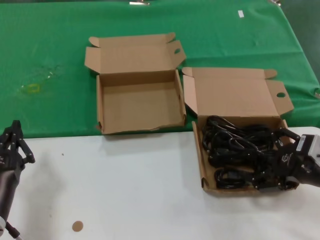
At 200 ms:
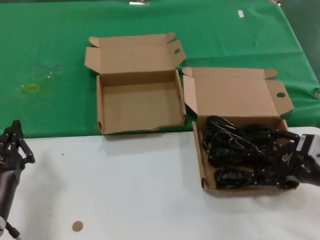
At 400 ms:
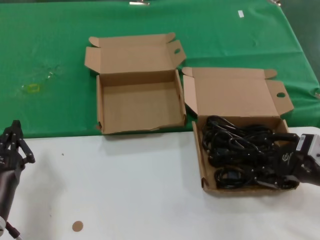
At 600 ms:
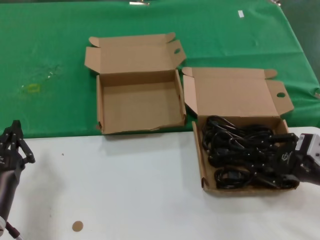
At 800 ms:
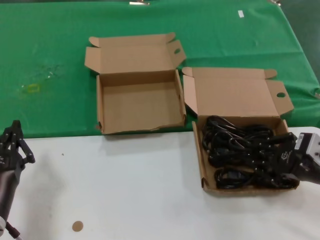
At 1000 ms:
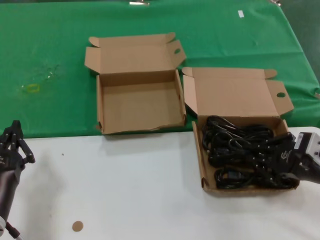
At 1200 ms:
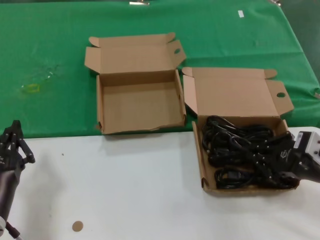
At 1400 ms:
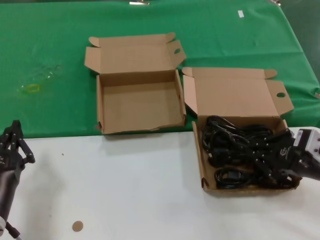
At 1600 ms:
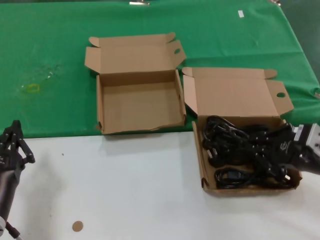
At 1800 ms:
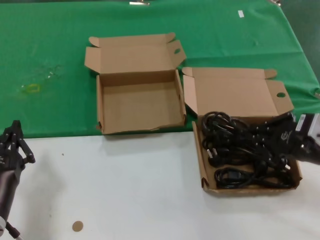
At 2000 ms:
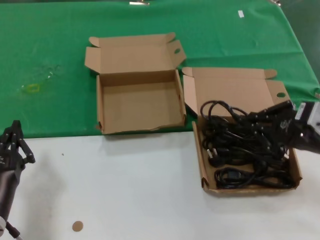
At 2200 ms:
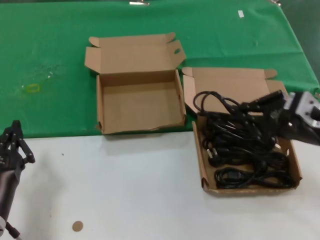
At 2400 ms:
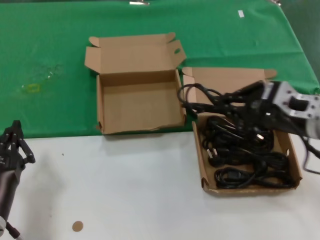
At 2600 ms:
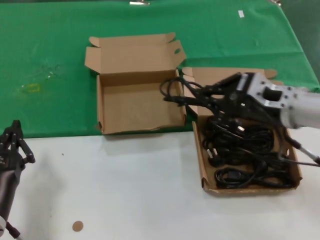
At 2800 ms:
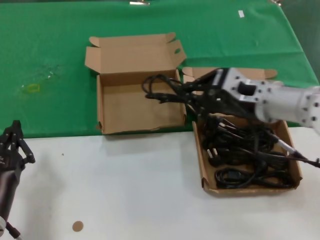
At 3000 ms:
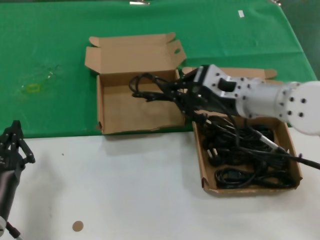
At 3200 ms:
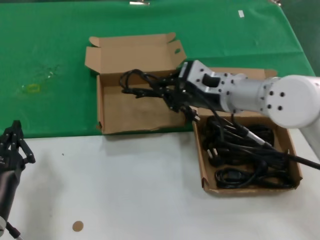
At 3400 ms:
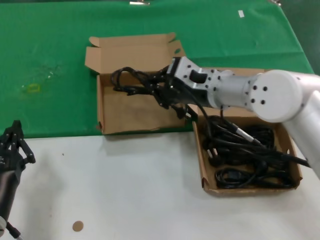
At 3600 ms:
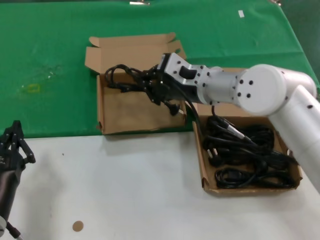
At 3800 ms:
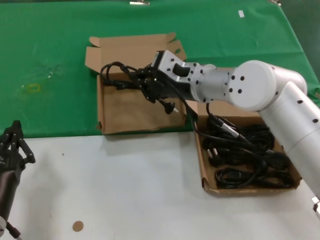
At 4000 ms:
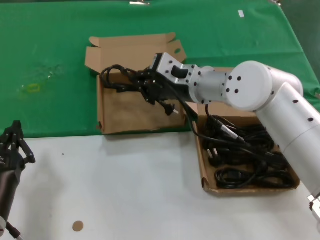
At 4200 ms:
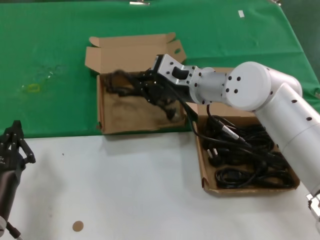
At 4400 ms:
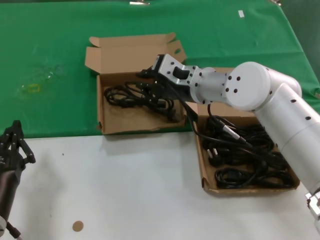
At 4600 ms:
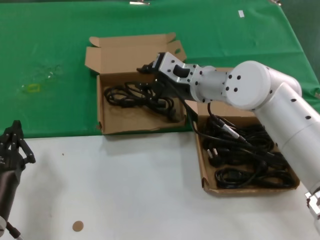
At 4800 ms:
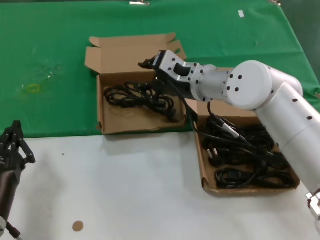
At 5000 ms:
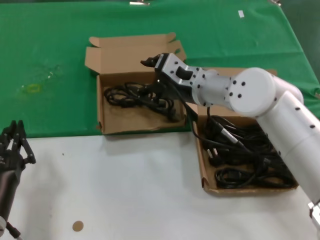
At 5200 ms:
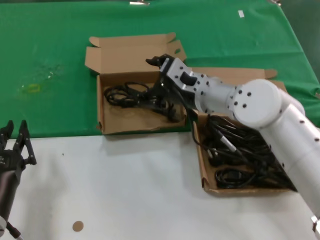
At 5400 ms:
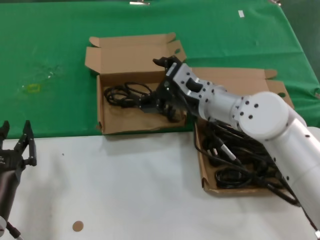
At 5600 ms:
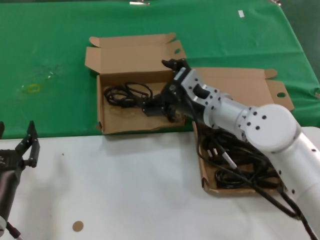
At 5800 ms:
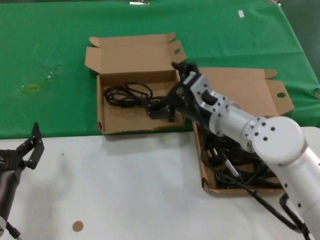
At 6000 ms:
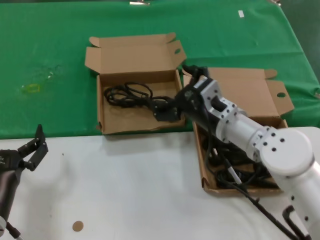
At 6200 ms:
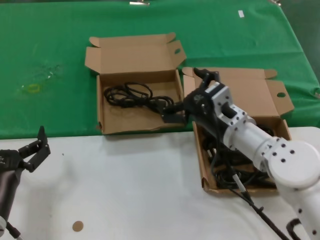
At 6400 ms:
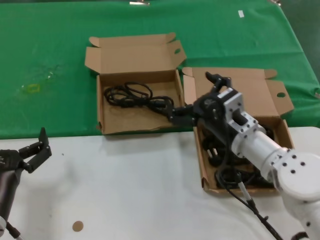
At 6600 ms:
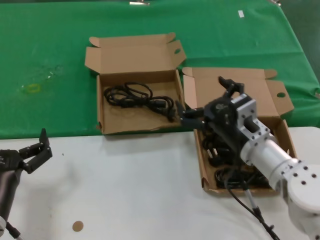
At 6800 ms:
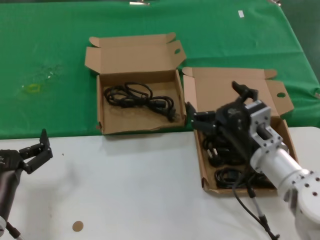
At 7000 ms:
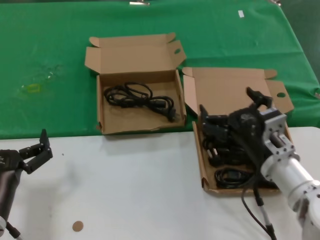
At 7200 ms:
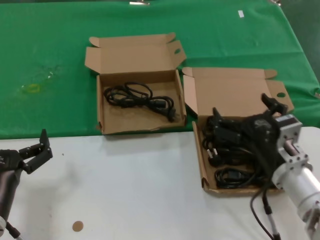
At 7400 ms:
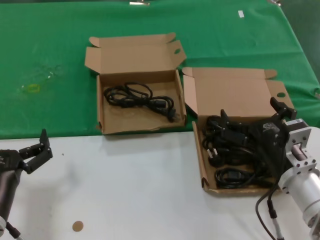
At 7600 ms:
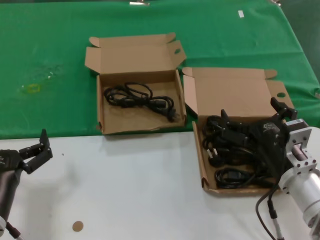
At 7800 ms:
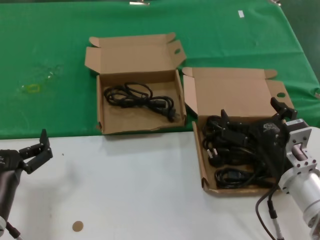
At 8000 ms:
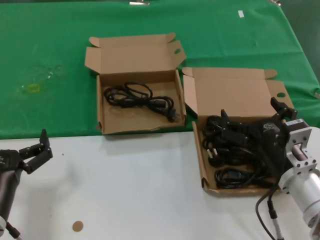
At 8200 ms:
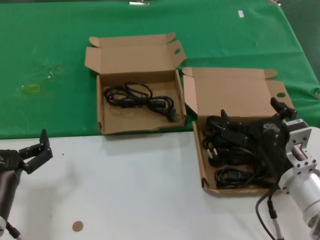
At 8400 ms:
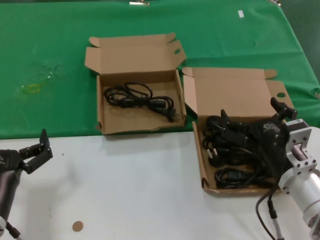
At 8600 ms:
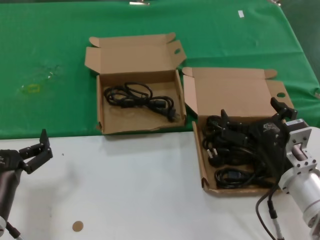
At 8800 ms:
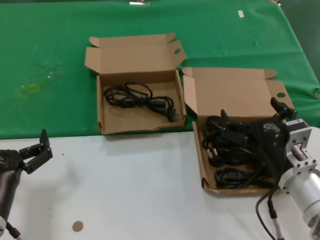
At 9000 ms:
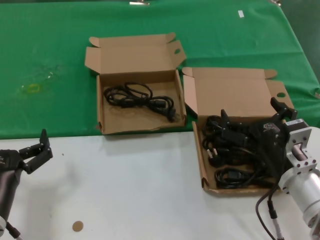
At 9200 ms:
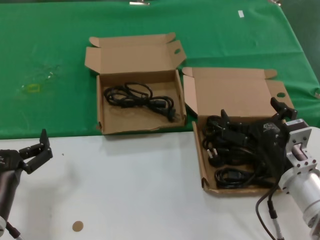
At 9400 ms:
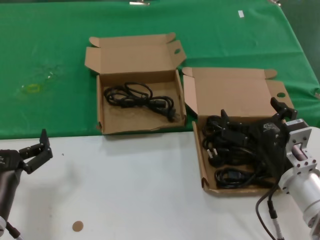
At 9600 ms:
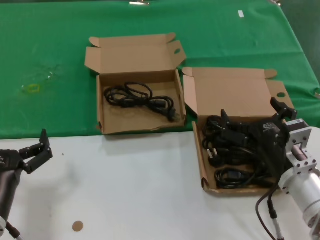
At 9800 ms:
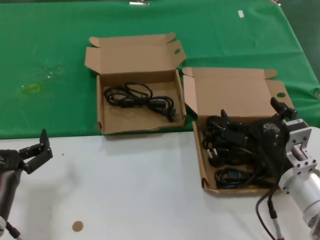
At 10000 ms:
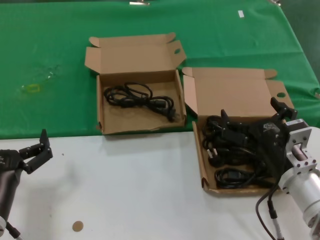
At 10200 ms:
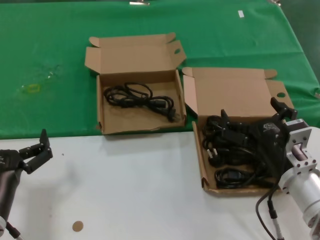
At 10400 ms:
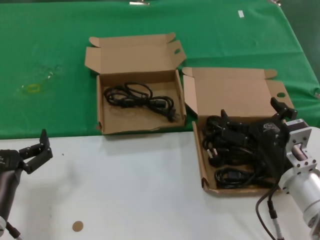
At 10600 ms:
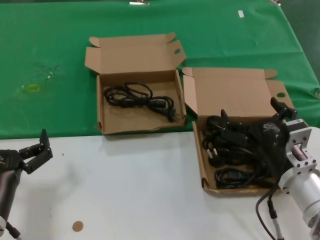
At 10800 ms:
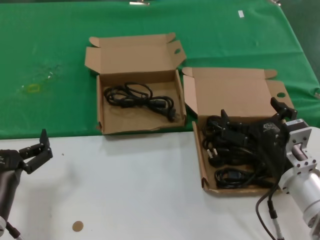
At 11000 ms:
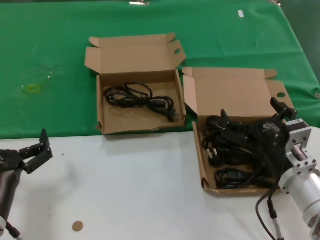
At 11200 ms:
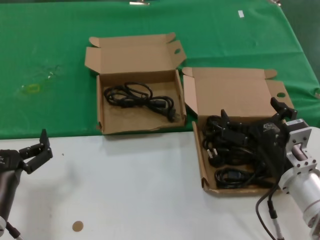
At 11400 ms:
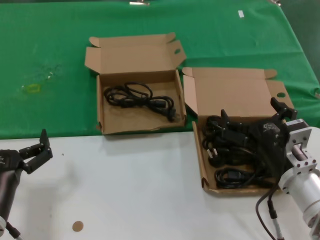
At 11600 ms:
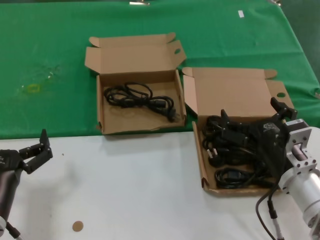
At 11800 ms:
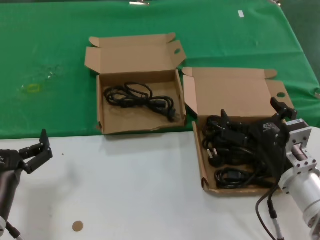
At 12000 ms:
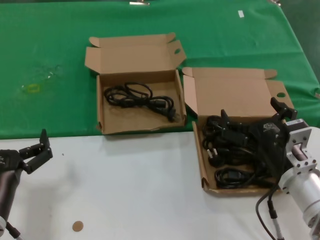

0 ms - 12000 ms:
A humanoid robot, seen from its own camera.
Task of the whole recording: take the parts from the box containing them and put them into an empty box.
Step, 1400 ms - 4600 ms: Place the data cable in the another box.
0 ms - 1600 ms: The hands make only small movements.
1600 ms - 3000 ms: The right hand shifts some 20 cm to the left and forward.
3000 ms - 4400 ms: The right hand heads forward and to the left, covering roughly 10 cm.
4400 ms - 6000 ms: The right hand travels downward and backward by approximately 10 cm.
6000 ms - 7600 ms: The right hand is displaced backward, to the right and downward by some 15 cm.
7600 ms - 12000 ms: Both hands stay about where they are.

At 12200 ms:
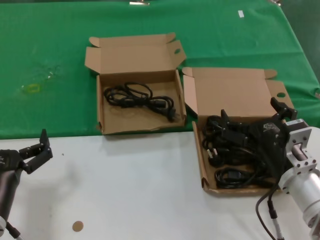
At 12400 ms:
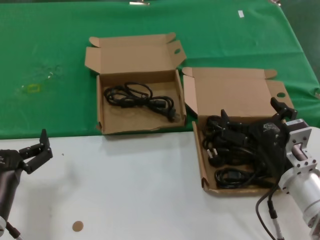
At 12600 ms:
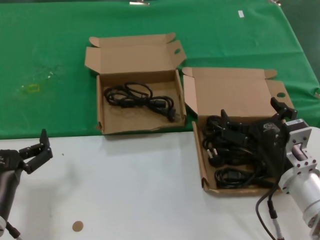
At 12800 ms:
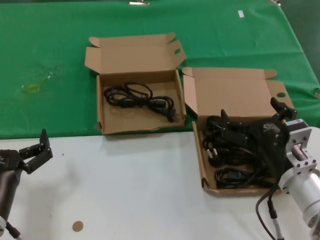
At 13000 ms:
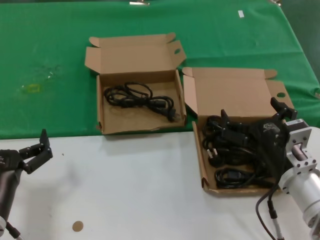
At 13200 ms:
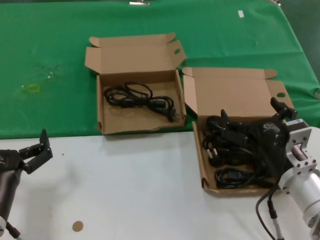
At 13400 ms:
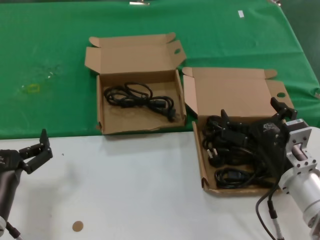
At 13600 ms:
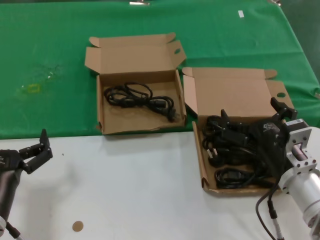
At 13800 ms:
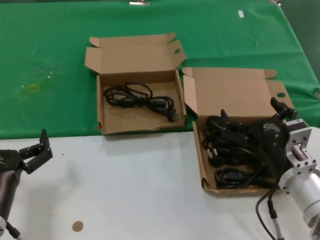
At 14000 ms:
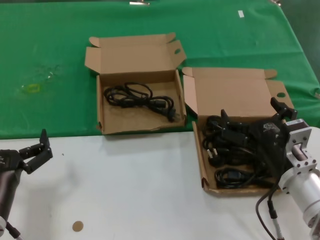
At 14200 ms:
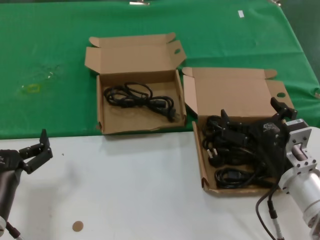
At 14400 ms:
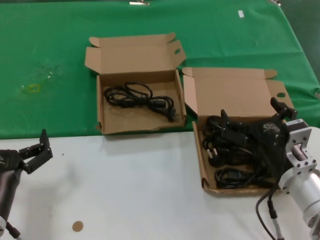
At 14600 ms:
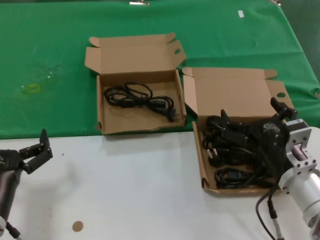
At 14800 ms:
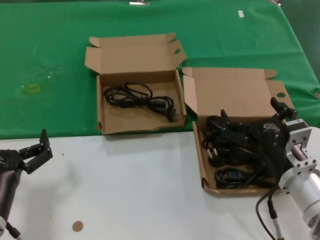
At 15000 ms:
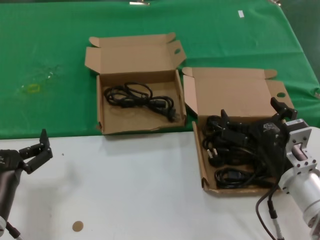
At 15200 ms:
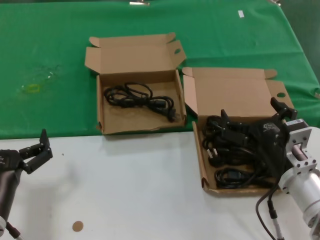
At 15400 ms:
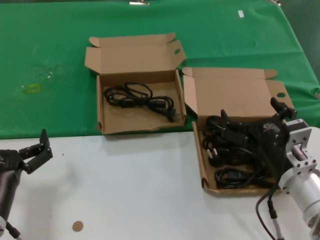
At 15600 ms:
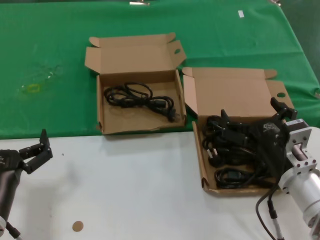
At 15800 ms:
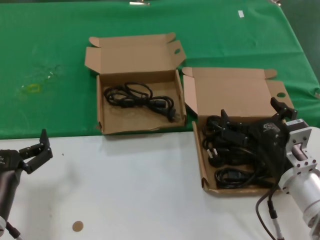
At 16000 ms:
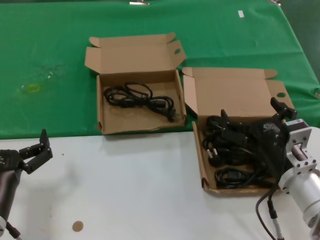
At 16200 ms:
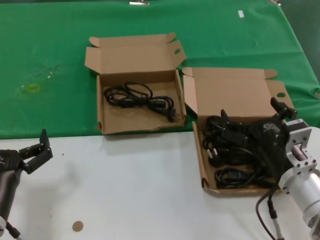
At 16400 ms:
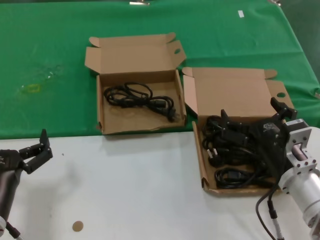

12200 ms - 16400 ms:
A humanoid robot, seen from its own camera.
Task of the whole recording: take the parts from the box containing them and put them into an empty box.
12200 ms - 16400 ms: Both hands stay put.

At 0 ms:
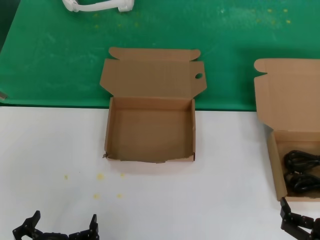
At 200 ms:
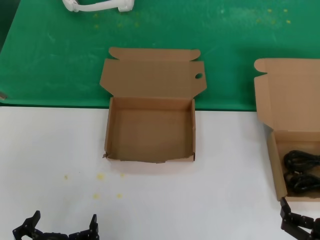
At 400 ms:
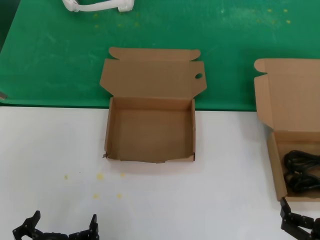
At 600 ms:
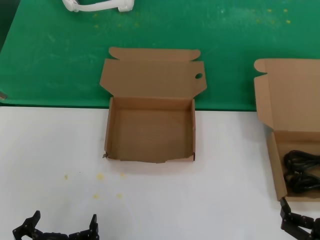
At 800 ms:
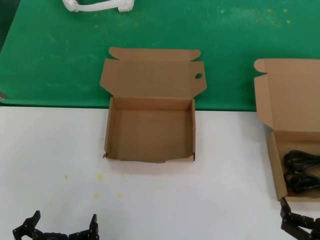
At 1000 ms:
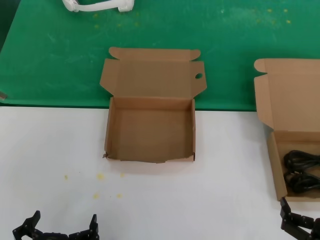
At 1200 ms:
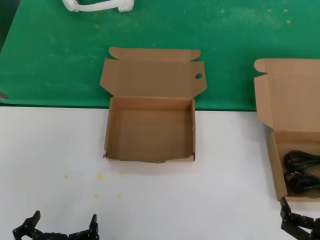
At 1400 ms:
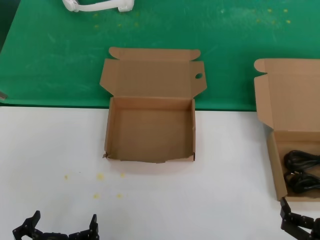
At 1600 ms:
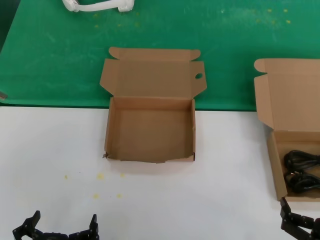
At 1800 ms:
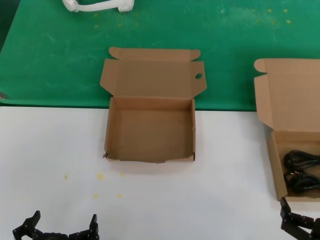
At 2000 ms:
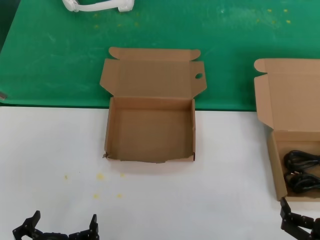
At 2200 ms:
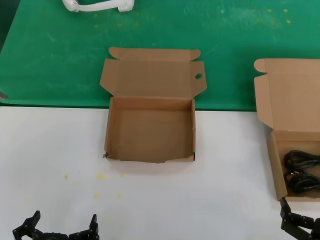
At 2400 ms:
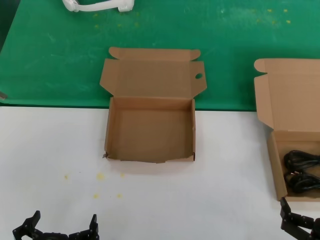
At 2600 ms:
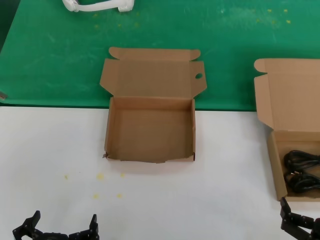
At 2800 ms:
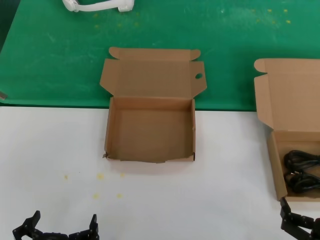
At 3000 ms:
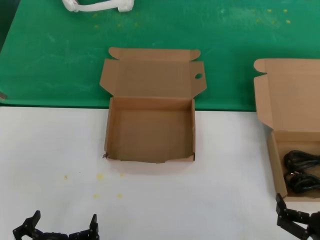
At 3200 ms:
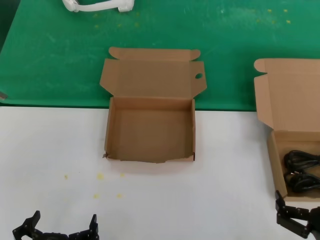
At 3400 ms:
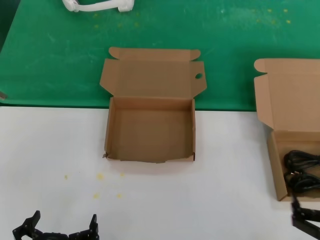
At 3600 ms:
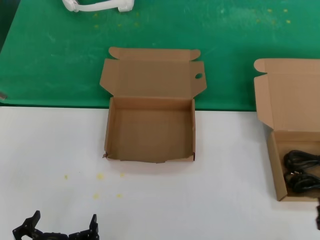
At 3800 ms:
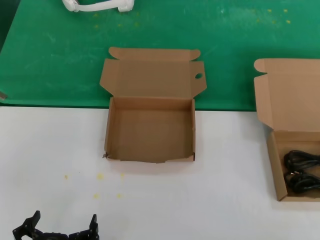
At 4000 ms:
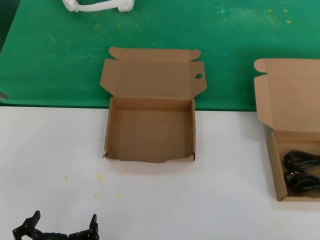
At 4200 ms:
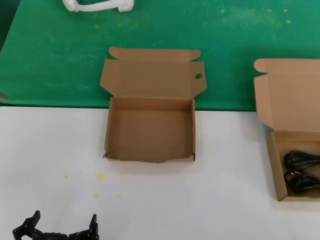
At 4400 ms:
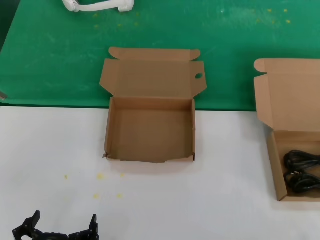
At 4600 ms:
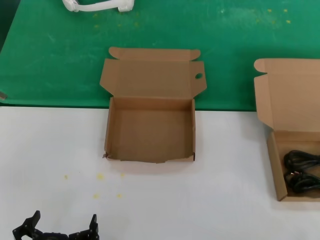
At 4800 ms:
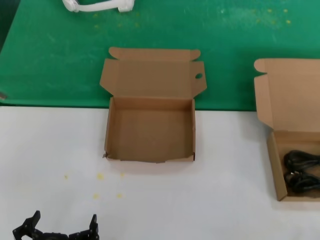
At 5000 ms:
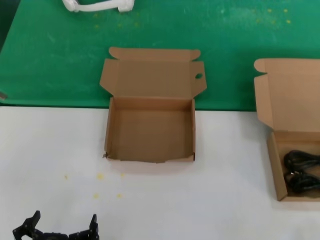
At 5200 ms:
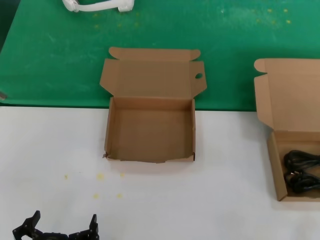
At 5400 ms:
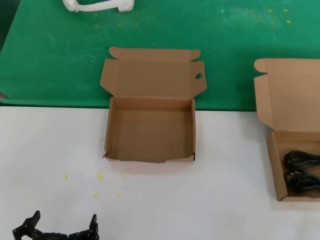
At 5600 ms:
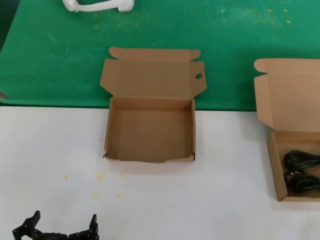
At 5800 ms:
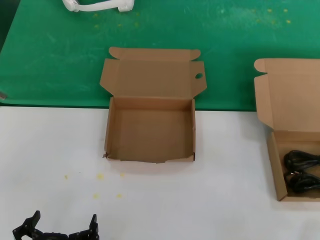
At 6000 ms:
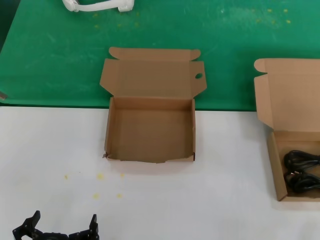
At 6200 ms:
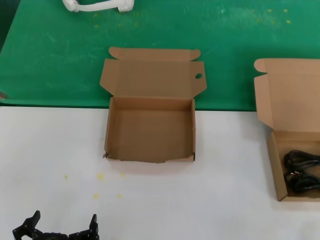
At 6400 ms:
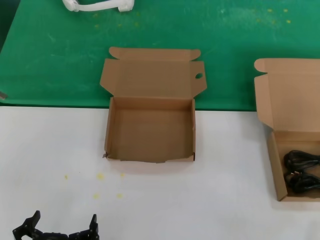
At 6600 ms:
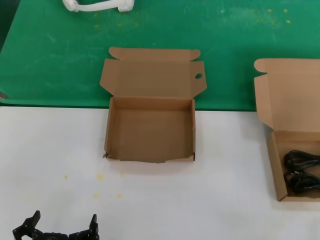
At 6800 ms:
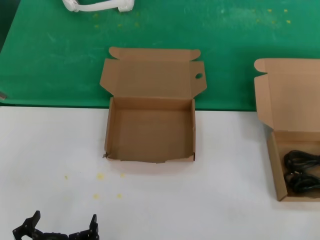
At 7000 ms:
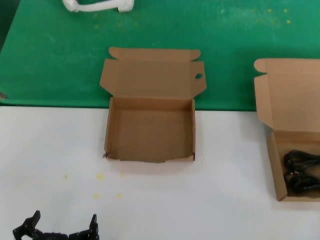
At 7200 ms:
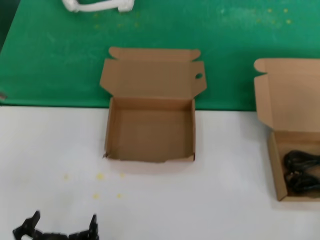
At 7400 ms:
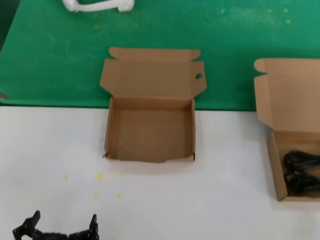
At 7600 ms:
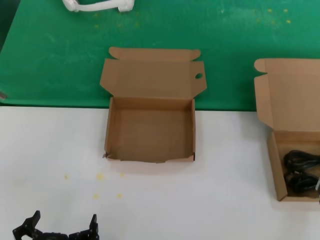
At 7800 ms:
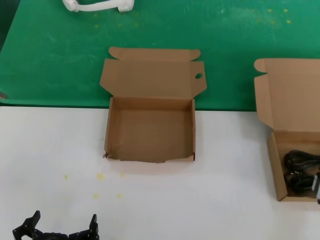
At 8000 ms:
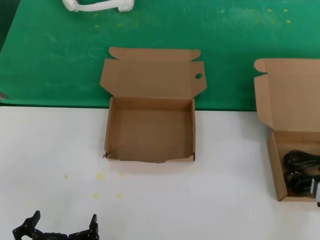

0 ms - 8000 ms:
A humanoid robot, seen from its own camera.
Task of the whole recording: take the parts from the box containing them and put them into an empty box.
0 ms - 1600 ms: Both hands stay put.
1600 ms - 3200 ms: The hands make only small movements.
